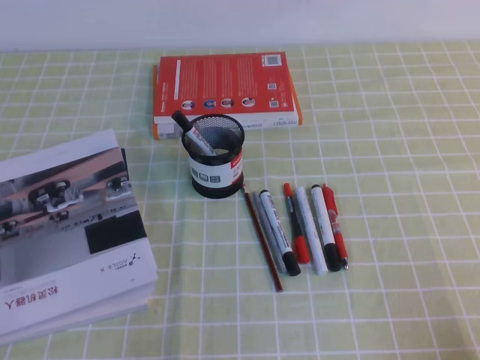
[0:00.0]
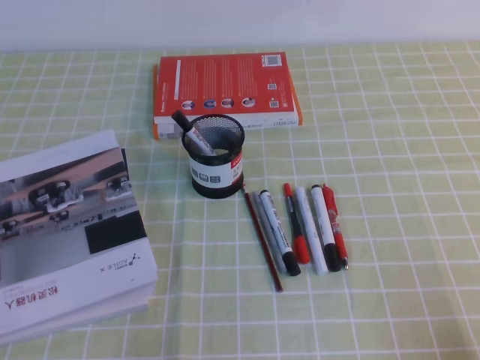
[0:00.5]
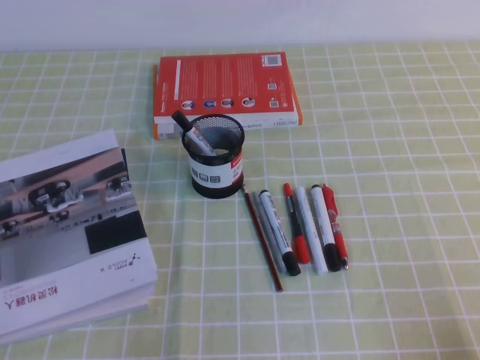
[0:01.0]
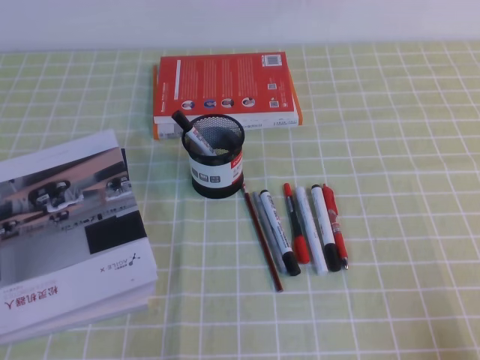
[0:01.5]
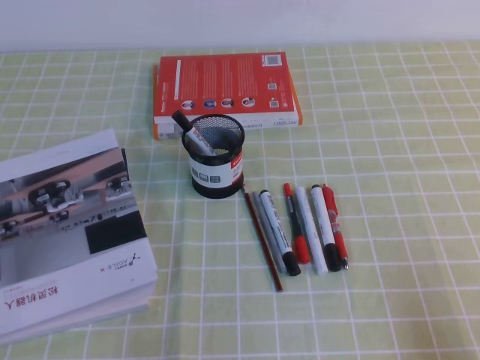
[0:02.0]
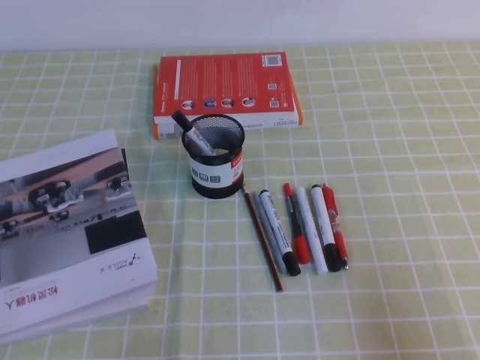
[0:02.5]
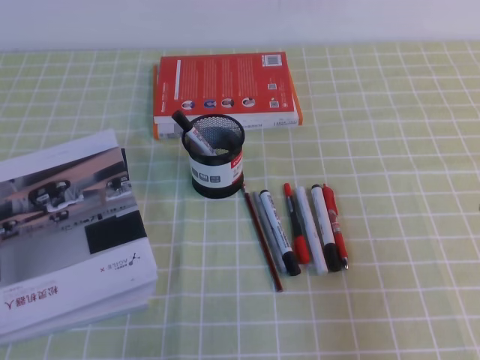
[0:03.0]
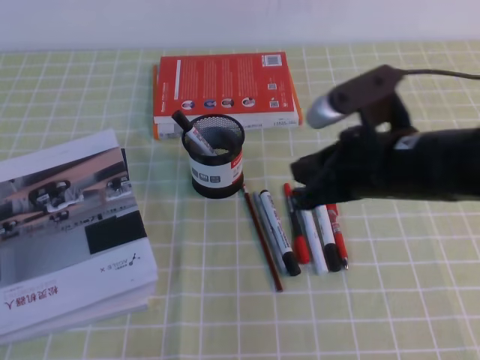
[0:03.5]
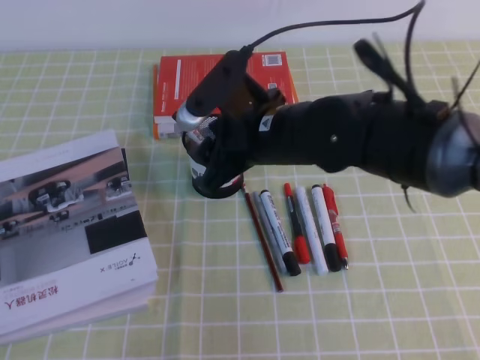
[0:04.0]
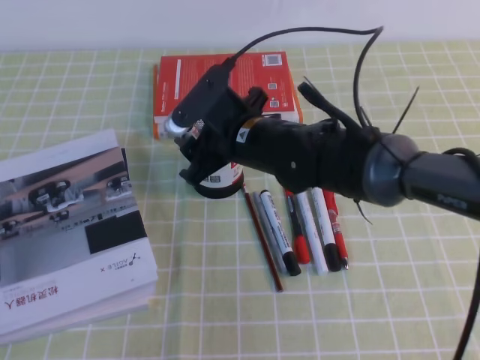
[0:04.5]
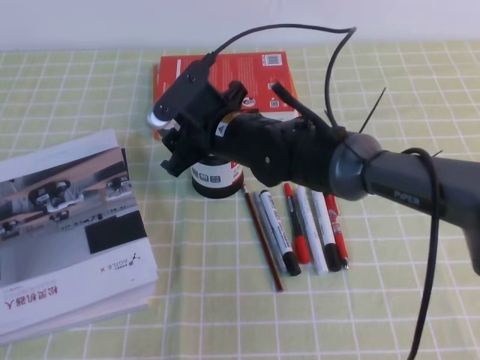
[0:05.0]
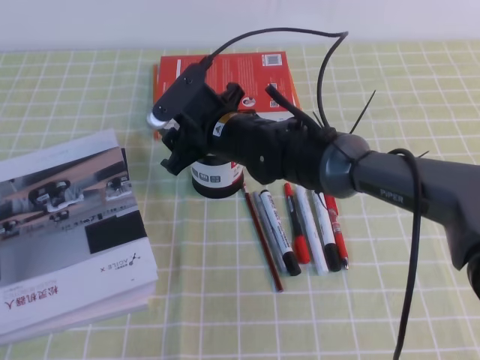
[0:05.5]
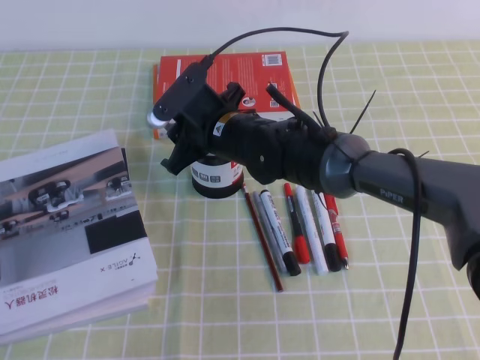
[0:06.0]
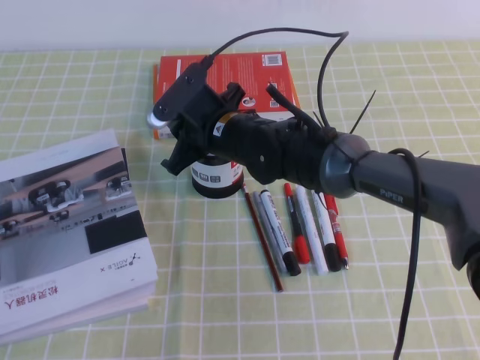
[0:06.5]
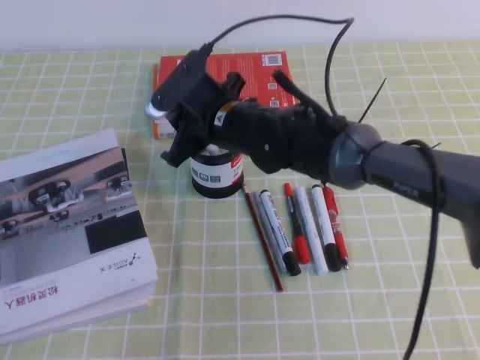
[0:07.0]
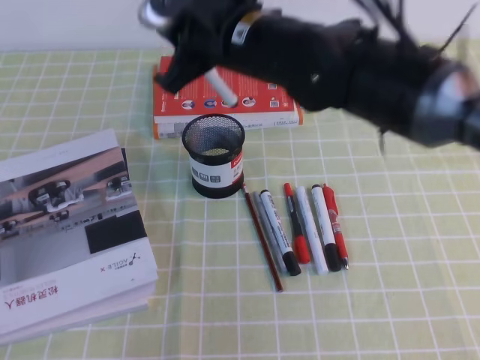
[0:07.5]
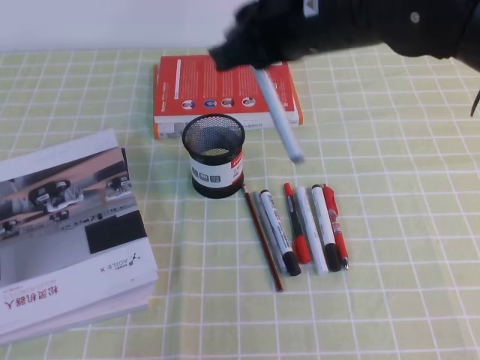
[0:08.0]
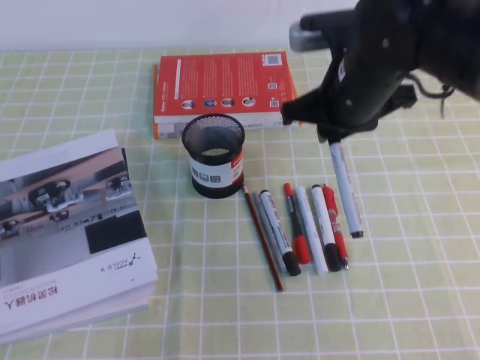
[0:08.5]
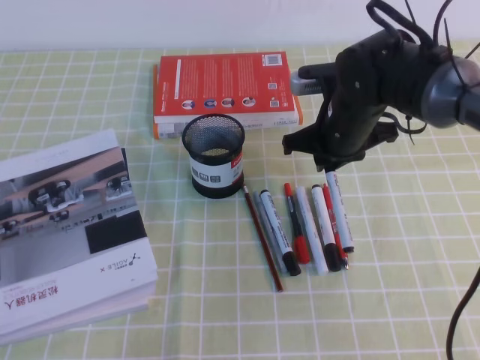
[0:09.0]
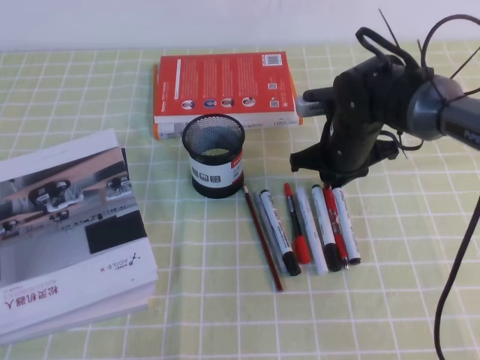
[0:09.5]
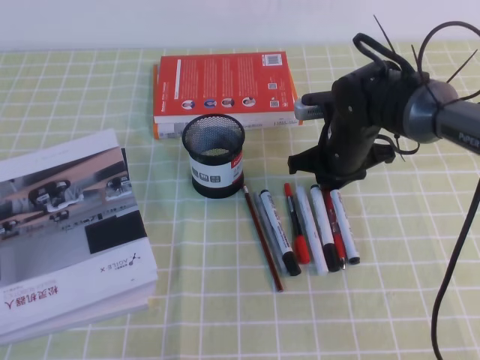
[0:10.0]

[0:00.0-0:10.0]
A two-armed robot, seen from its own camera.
0:02.0 to 0:04.0: The right gripper heads to the left and forward, covering approximately 40 cm, and opens up.
0:04.0 to 0:06.0: The right gripper travels forward, to the left and downward by roughly 10 cm, and opens, then closes once more.
0:06.0 to 0:08.0: The right gripper travels upward, to the right and backward by roughly 20 cm.
0:08.0 to 0:10.0: The right gripper shifts roughly 25 cm downward and forward.

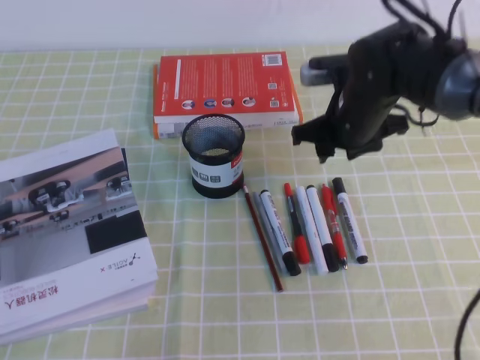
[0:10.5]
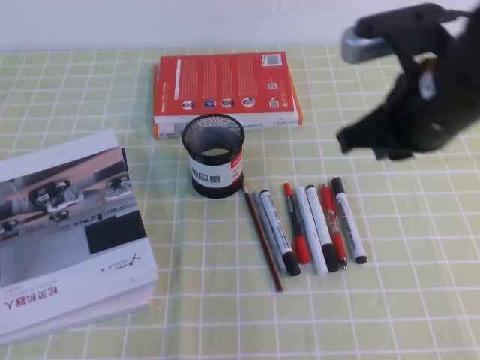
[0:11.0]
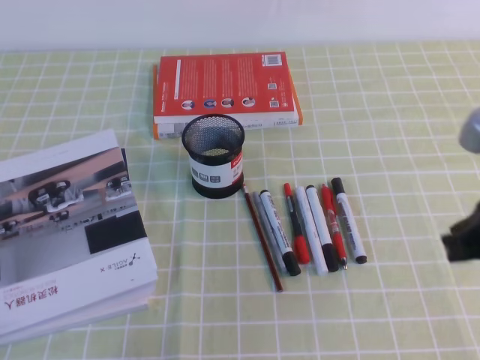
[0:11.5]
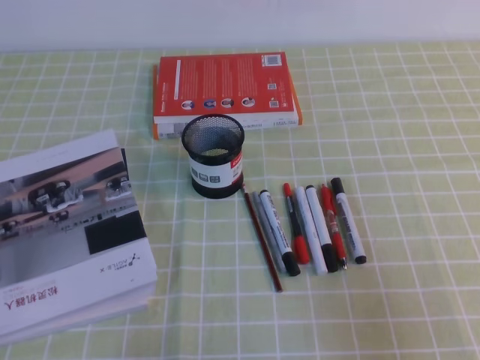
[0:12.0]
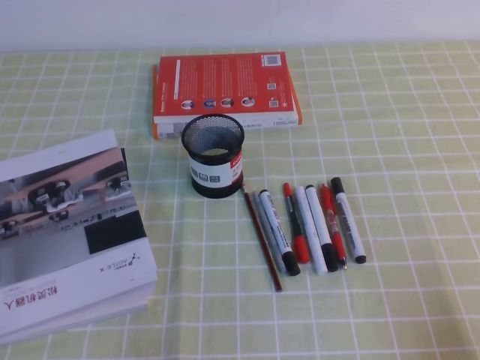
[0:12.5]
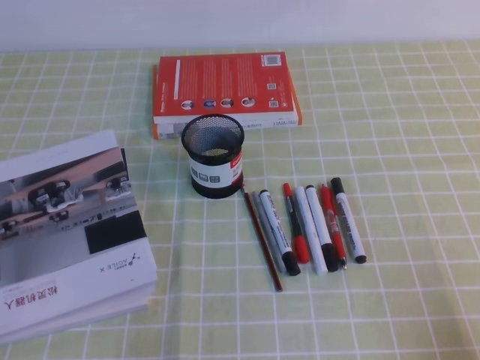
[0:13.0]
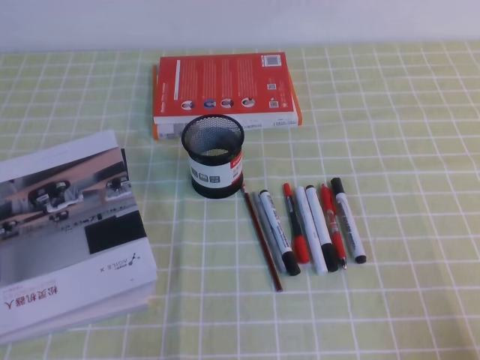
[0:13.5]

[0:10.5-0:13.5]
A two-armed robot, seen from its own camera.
Step, 0:10.5 to 0:13.5: Pick up the pen from the pen holder.
0:10.5 to 0:12.0: The right gripper shifts about 30 cm backward and to the right, and closes its fingers.
0:12.0 to 0:13.5: The right gripper travels downward and backward by some 10 cm.

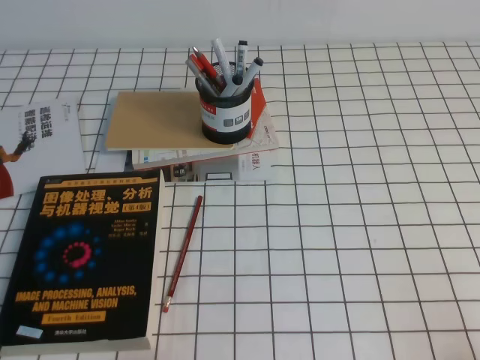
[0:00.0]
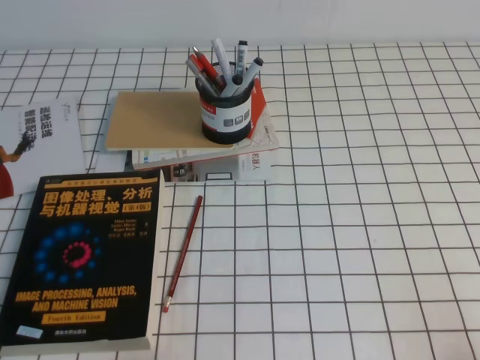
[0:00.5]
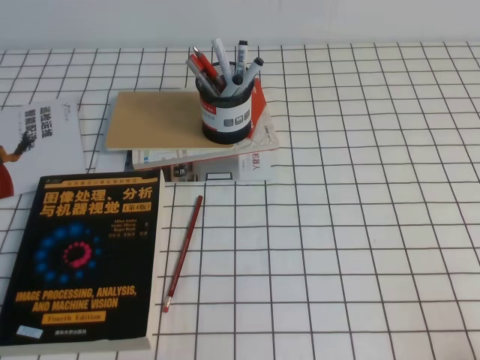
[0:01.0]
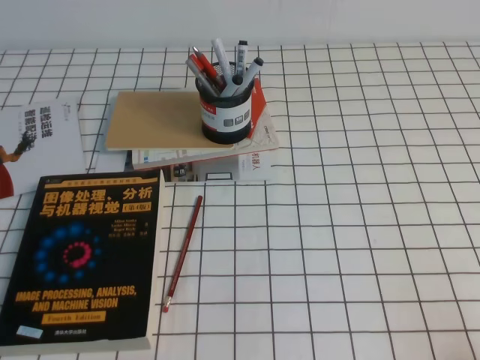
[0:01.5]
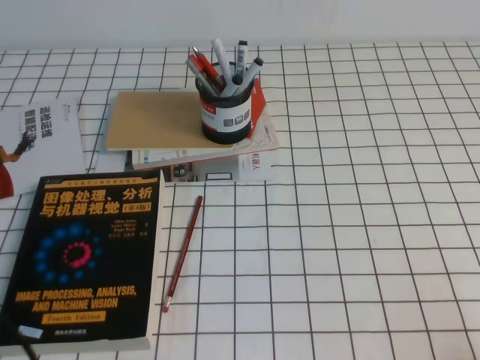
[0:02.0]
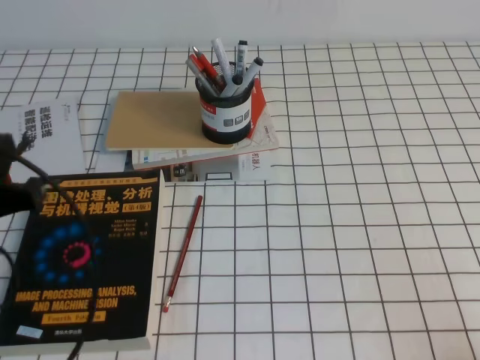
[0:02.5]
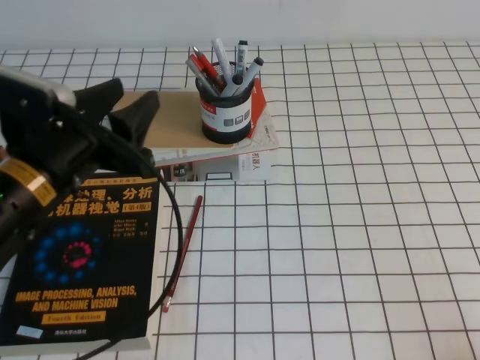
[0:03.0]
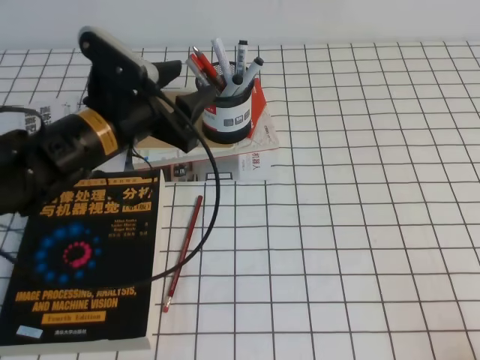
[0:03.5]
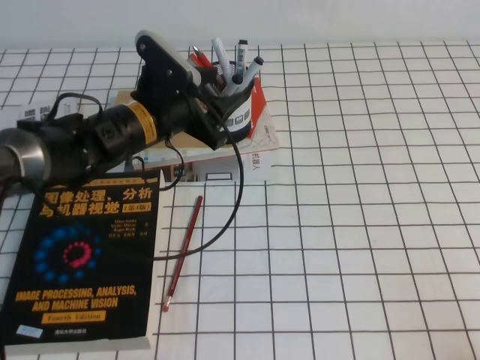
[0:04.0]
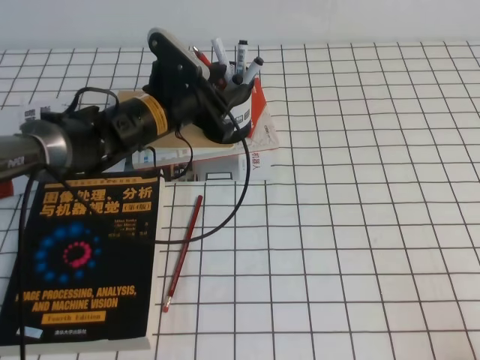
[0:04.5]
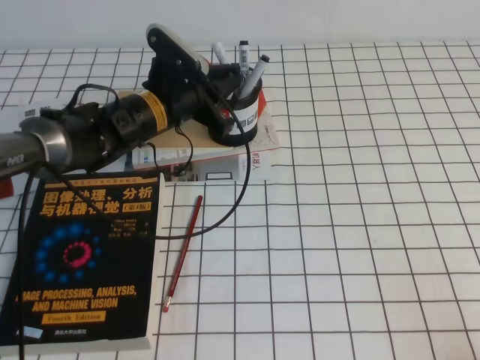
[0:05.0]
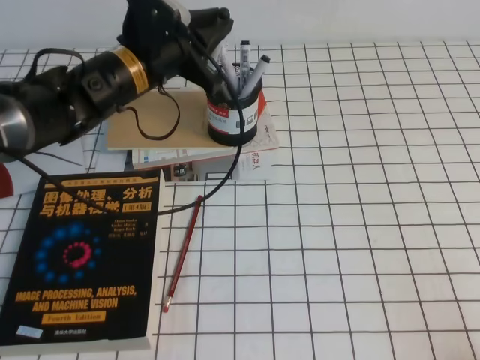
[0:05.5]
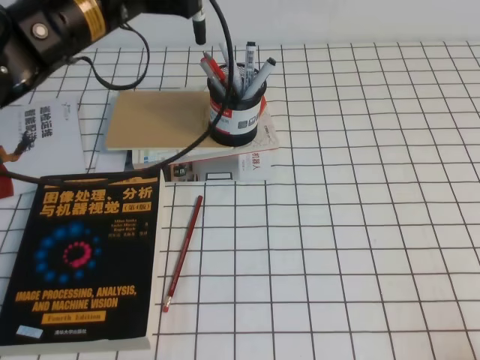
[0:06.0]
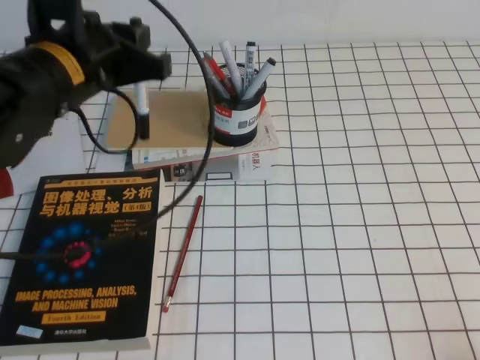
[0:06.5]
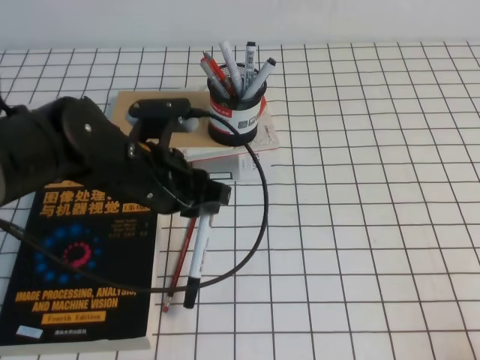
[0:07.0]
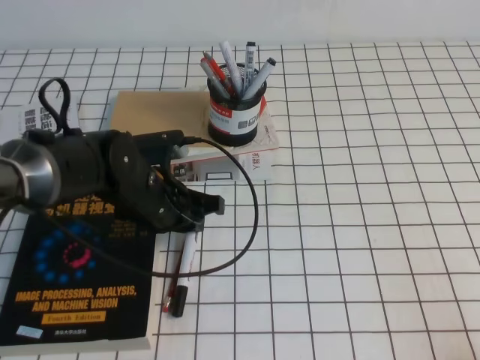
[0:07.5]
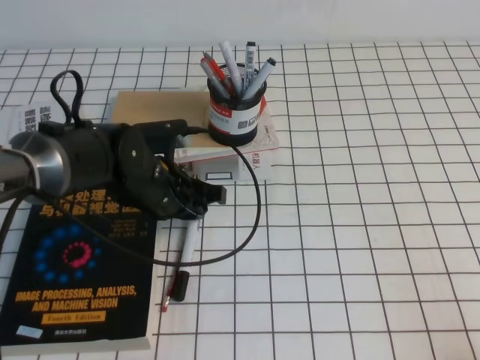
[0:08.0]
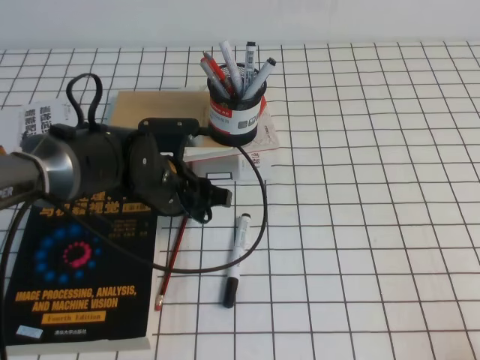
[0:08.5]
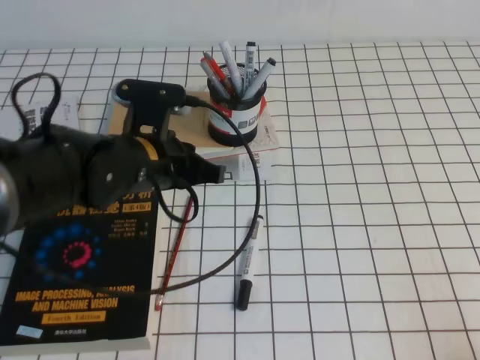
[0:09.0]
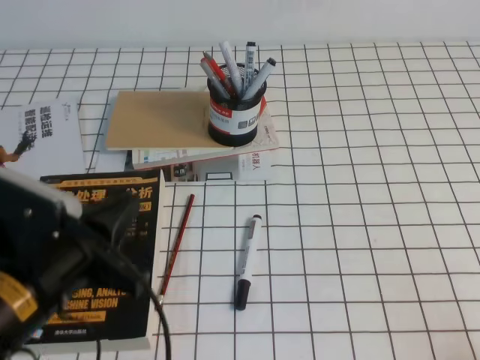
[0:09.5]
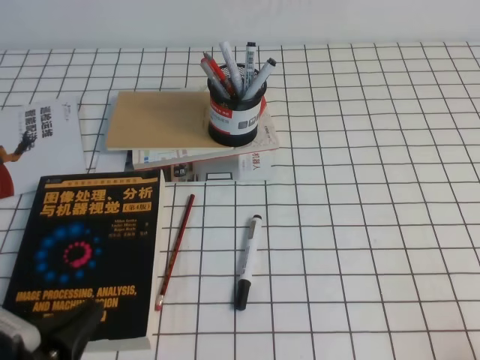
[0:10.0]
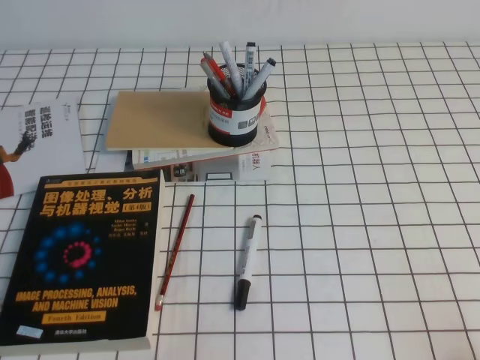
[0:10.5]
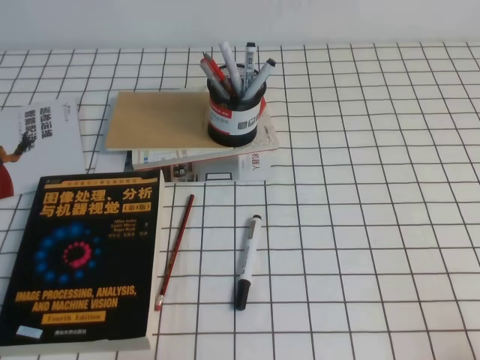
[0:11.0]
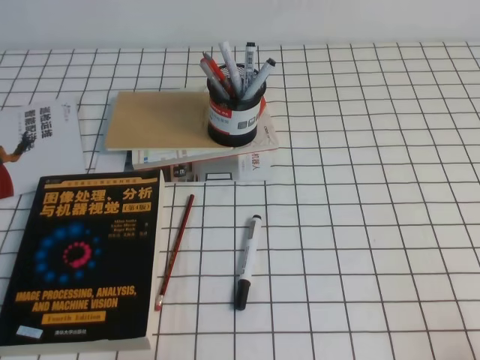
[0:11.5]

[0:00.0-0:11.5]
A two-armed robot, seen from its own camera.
Step, 0:00.0 to 0:11.5: Pick up the pen from the pen holder.
0:02.0 to 0:04.0: The left gripper is displaced forward and to the right by roughly 35 cm, and opens.
0:04.0 to 0:06.0: The left gripper moves upward, some 15 cm, and closes.
0:06.0 to 0:07.5: The left gripper travels downward by roughly 20 cm.
0:07.5 to 0:09.5: The left gripper moves backward, to the left and upward, about 15 cm.
0:09.5 to 0:11.5: The left gripper shifts roughly 20 cm backward, to the left and downward.
